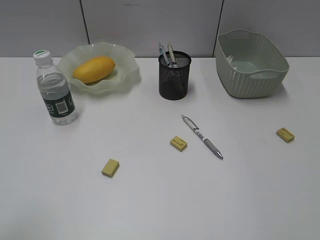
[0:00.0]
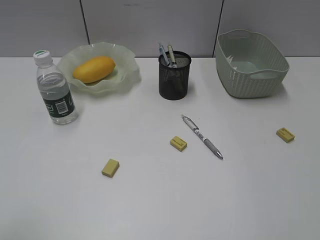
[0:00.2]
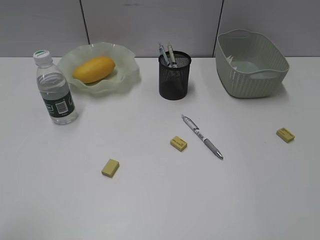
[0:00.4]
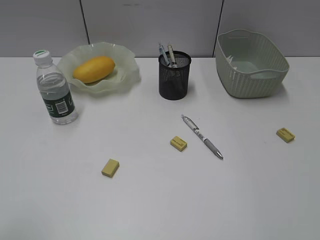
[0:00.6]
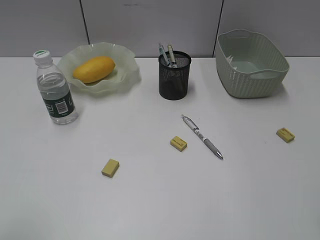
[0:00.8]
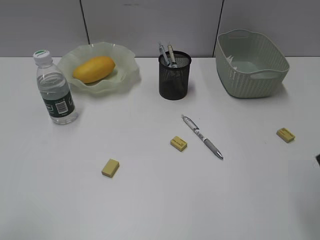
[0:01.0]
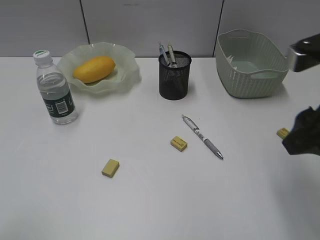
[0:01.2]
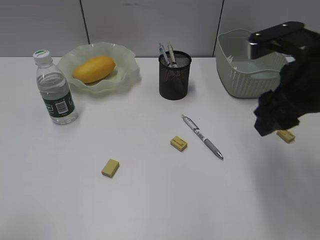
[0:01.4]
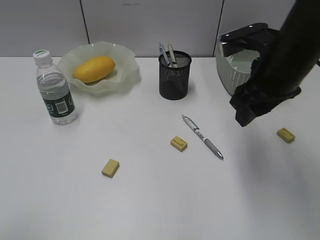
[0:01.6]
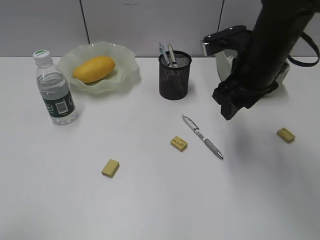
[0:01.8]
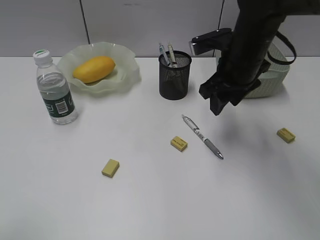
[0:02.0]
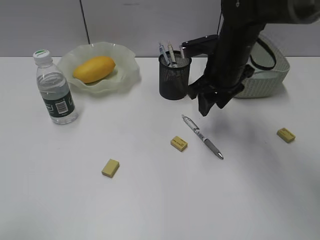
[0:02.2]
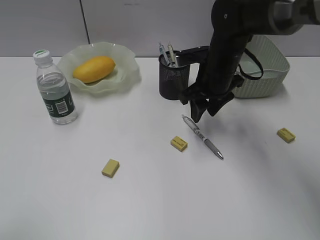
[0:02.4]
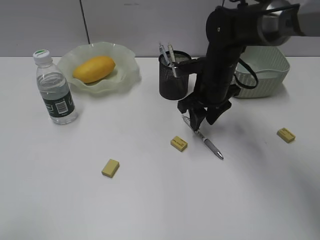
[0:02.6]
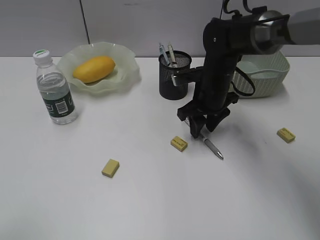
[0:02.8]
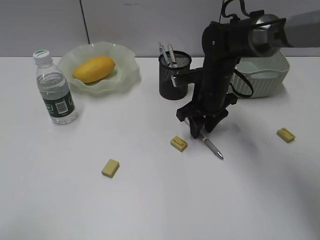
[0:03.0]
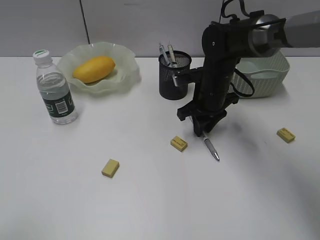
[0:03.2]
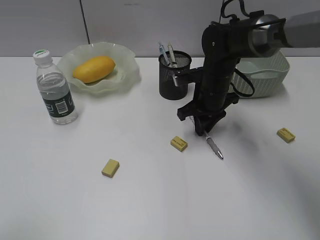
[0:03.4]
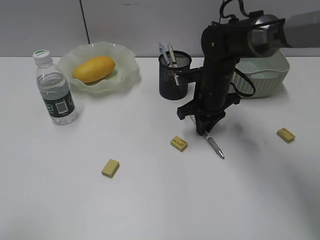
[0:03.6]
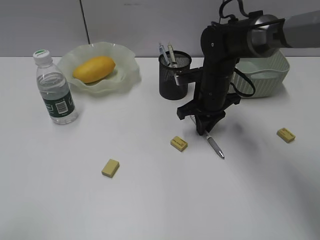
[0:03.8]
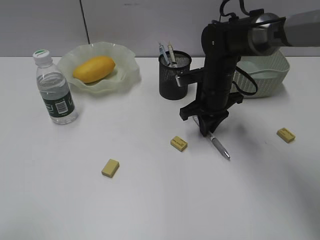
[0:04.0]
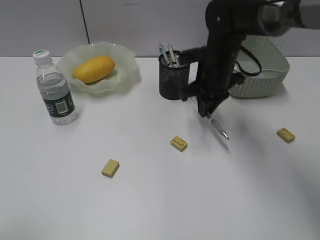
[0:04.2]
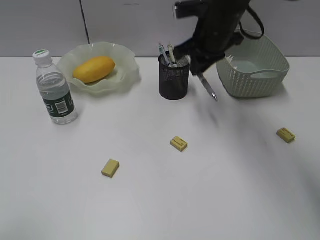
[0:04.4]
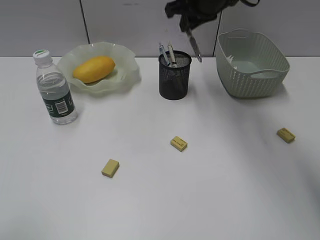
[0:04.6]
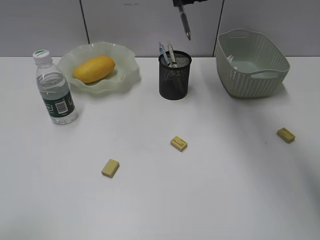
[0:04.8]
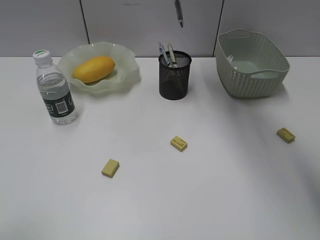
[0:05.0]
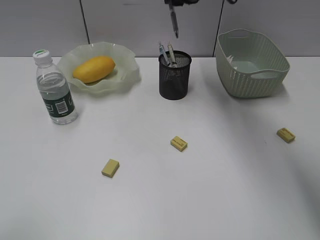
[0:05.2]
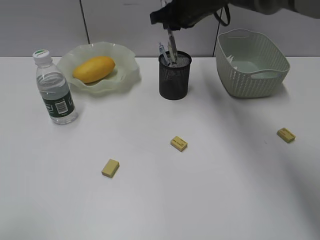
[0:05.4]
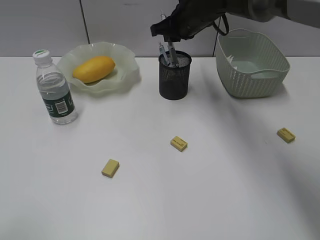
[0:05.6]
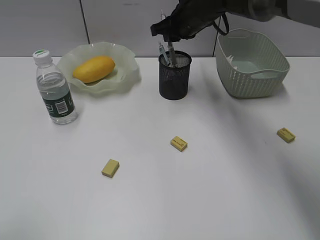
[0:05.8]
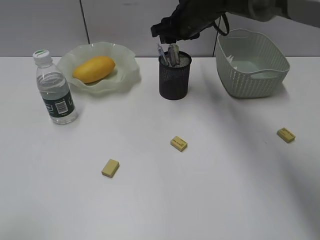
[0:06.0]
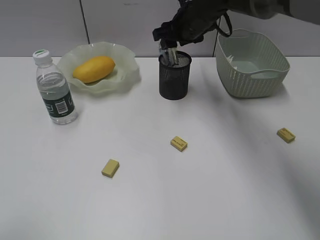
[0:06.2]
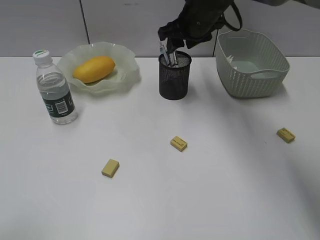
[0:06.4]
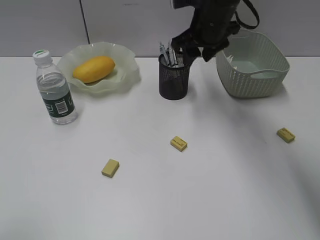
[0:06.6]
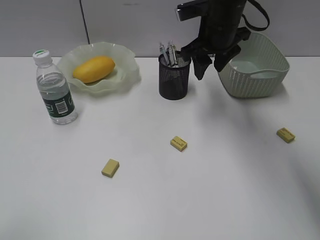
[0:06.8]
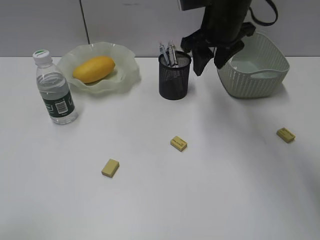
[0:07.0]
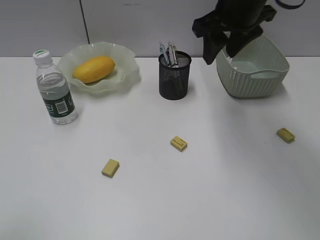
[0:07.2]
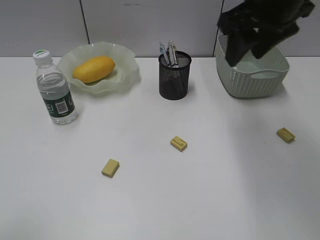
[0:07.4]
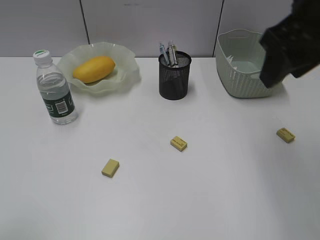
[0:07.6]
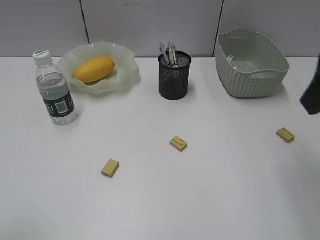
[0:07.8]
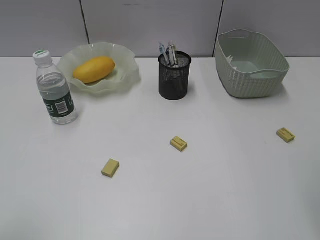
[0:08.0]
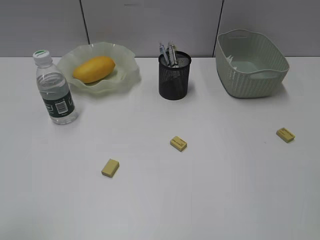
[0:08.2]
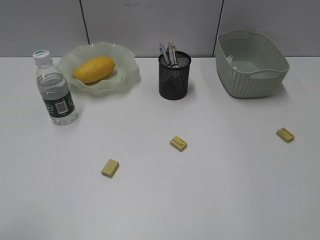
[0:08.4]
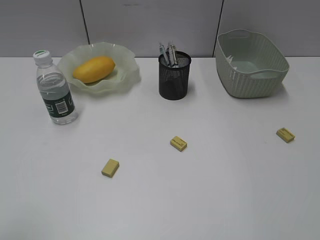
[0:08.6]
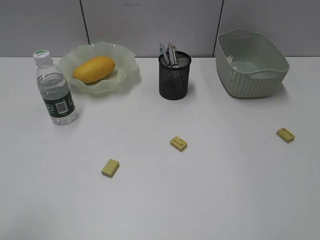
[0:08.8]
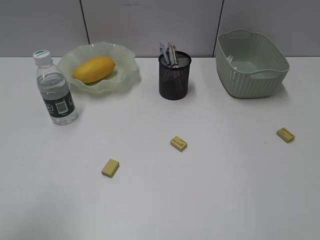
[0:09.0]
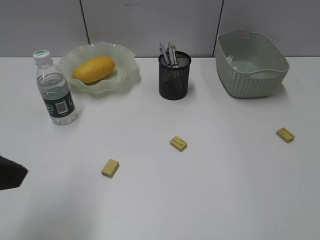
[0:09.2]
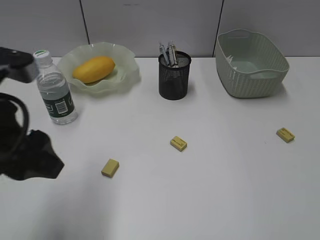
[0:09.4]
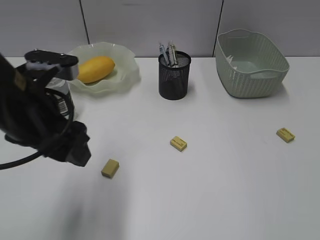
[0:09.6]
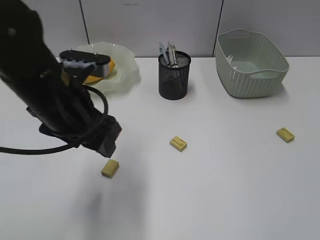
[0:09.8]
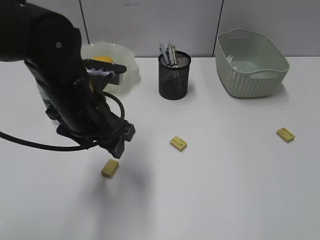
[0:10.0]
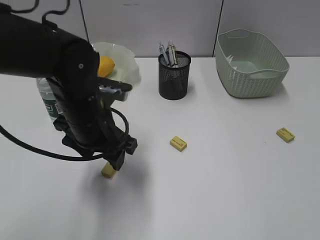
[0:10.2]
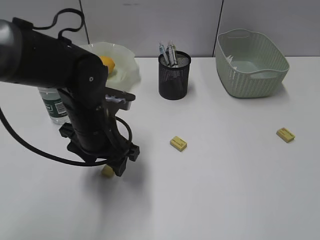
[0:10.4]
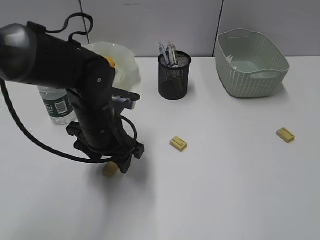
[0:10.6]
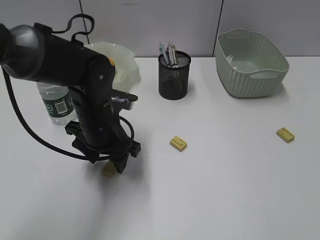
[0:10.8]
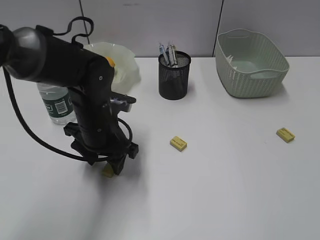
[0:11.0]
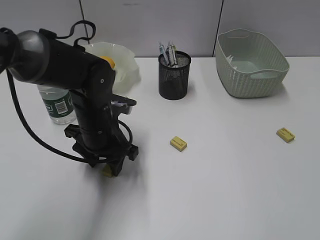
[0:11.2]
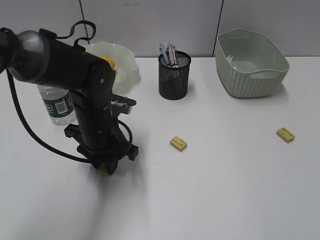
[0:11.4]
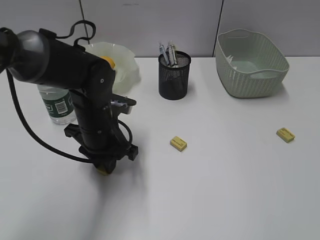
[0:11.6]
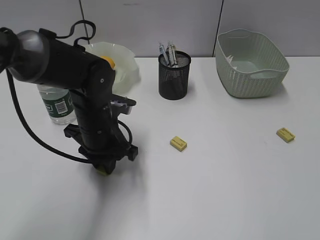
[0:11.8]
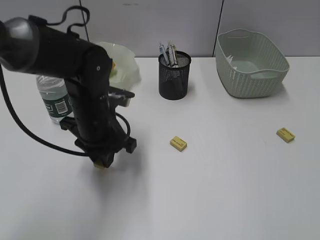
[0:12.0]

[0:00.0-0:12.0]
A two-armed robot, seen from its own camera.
Step, 0:00.0 to 0:03.8: Grasp the gray pen with right gripper.
Step, 0:04.0 to 0:06.0: Place the gray pen in pen holder with right gripper.
Step, 0:06.2 to 0:11.6: Grasp the eraser with left gripper.
0:00.0 to 0:01.6: The right gripper moves forward and to the left, approximately 30 cm.
0:01.6 to 0:03.0: The right gripper travels downward, forward and to the left by some 20 cm.
0:03.0 to 0:04.4: The right gripper is displaced upward by roughly 10 cm, and closes up.
0:04.4 to 0:06.0: The right gripper is displaced forward by some 5 cm, reaches roughly 10 cm upward, then returns, and opens.
0:06.0 to 0:07.6: The right gripper travels backward, upward and to the right by roughly 30 cm.
0:07.6 to 0:09.0: The right gripper goes some 25 cm backward and to the right.
0:09.0 to 0:10.4: The left gripper shifts some 30 cm forward, to the right and downward.
0:10.4 to 0:12.0: The left gripper closes up.

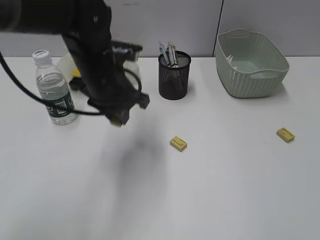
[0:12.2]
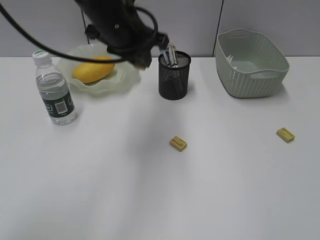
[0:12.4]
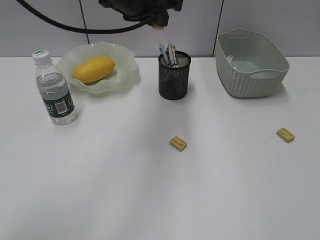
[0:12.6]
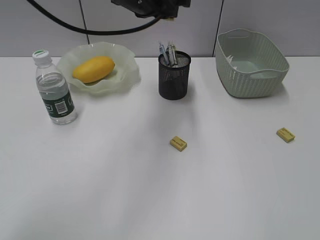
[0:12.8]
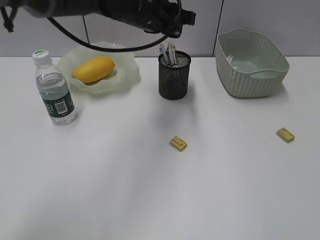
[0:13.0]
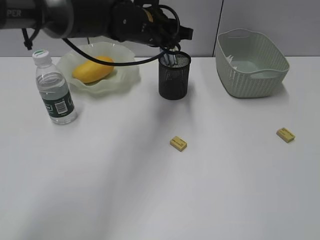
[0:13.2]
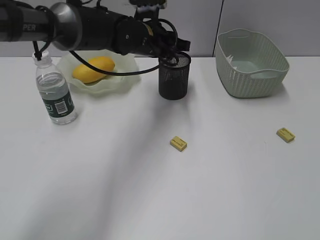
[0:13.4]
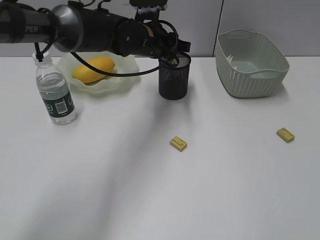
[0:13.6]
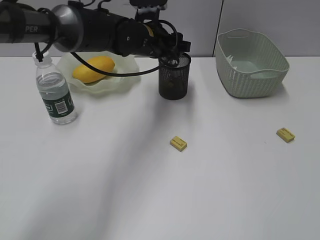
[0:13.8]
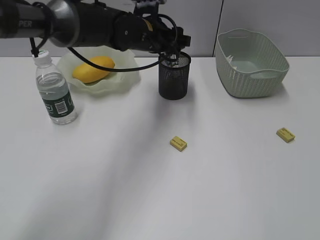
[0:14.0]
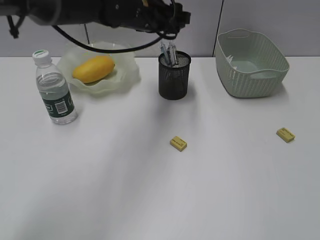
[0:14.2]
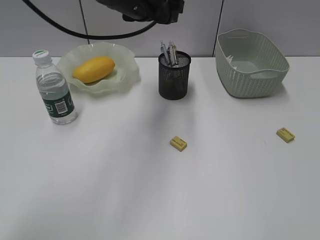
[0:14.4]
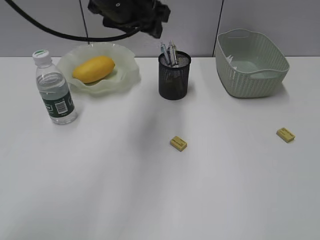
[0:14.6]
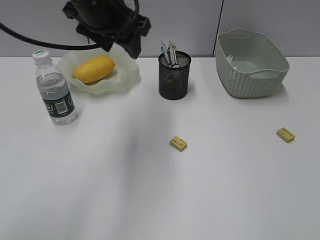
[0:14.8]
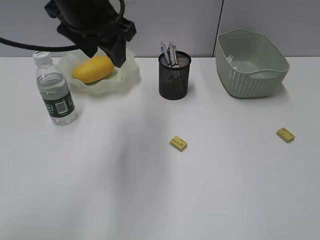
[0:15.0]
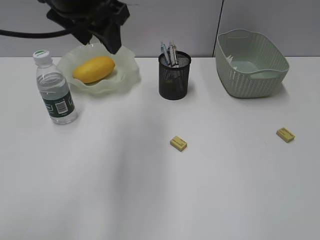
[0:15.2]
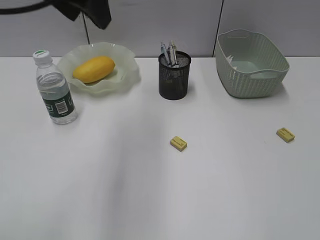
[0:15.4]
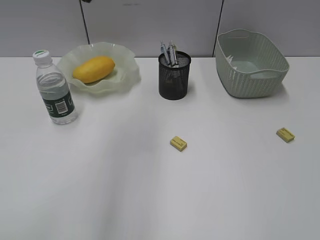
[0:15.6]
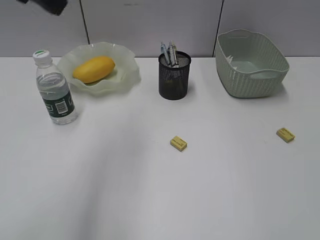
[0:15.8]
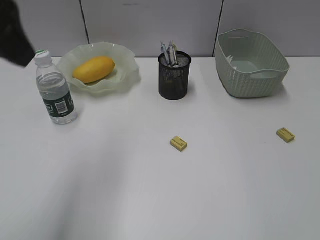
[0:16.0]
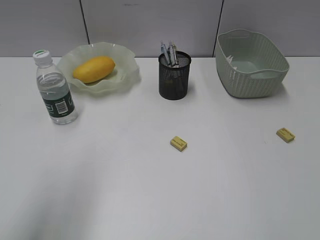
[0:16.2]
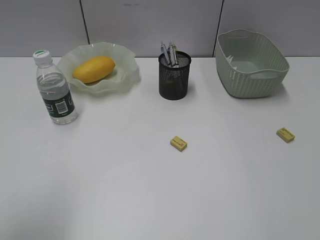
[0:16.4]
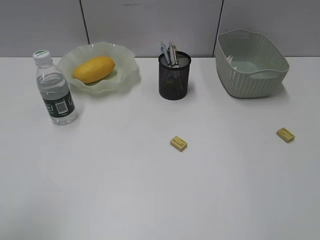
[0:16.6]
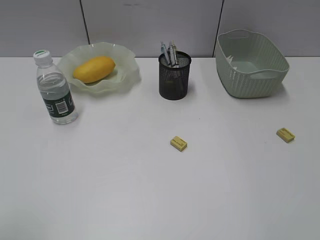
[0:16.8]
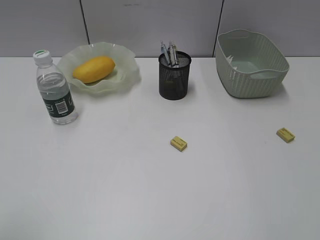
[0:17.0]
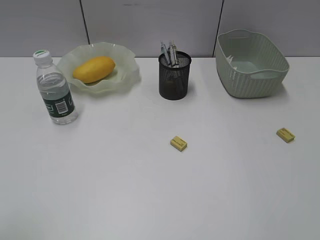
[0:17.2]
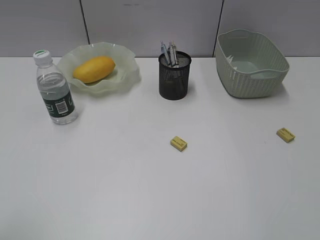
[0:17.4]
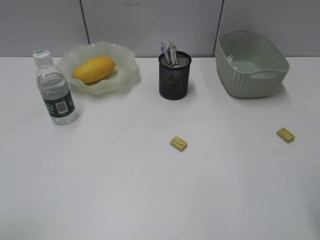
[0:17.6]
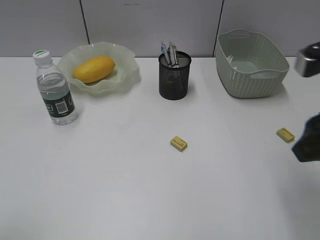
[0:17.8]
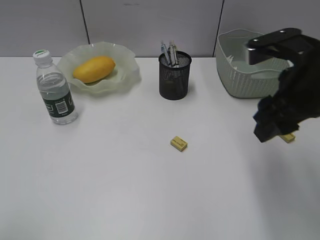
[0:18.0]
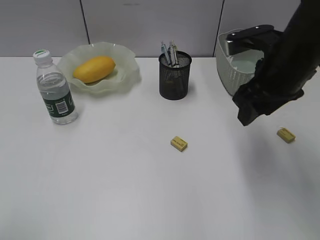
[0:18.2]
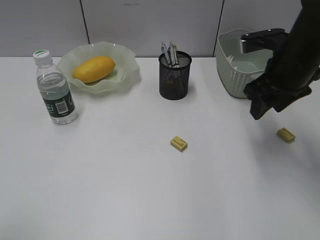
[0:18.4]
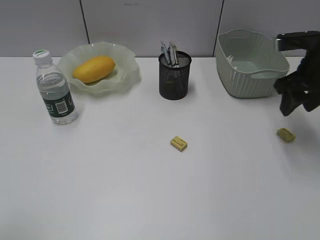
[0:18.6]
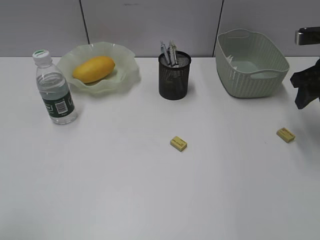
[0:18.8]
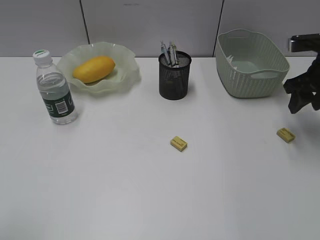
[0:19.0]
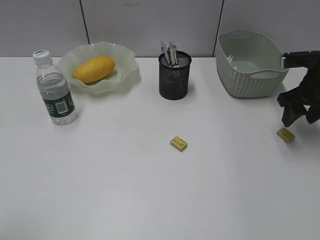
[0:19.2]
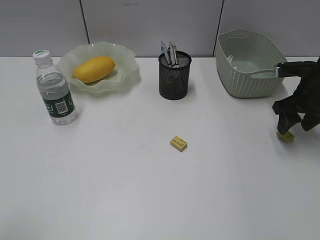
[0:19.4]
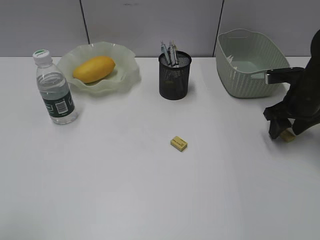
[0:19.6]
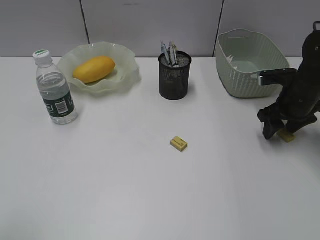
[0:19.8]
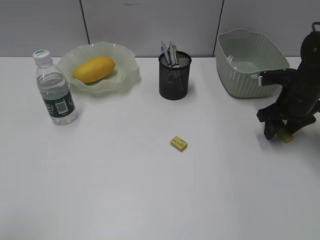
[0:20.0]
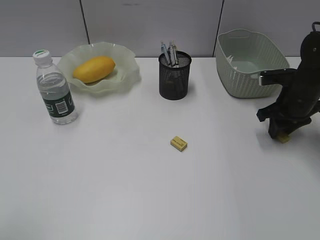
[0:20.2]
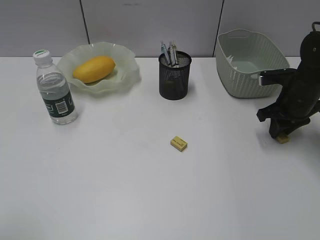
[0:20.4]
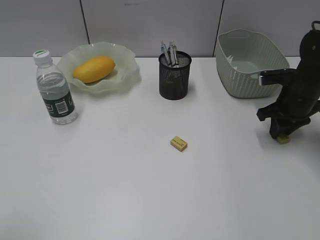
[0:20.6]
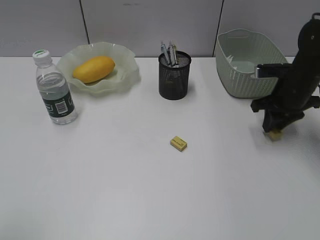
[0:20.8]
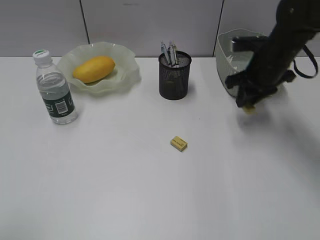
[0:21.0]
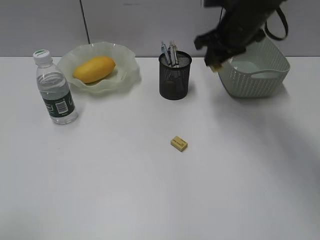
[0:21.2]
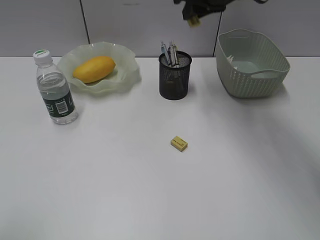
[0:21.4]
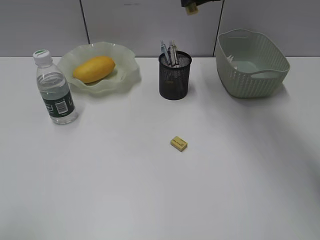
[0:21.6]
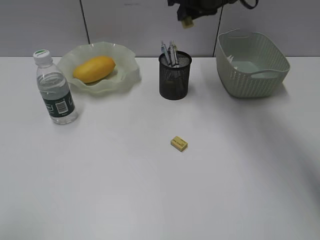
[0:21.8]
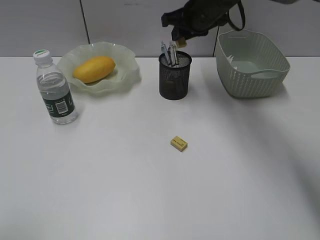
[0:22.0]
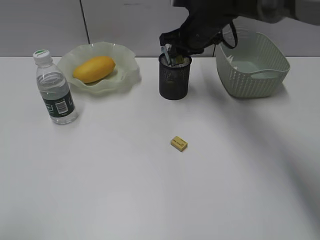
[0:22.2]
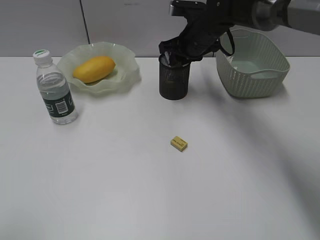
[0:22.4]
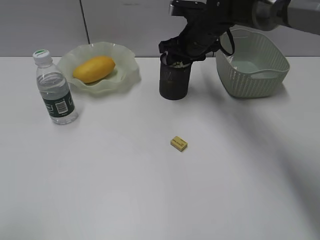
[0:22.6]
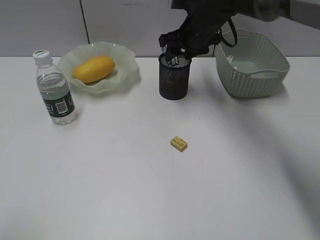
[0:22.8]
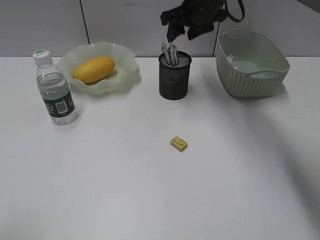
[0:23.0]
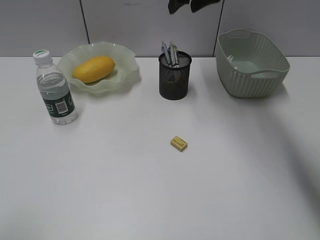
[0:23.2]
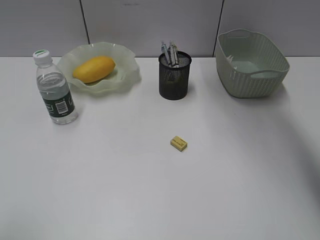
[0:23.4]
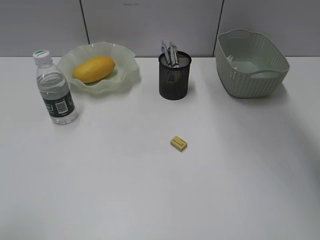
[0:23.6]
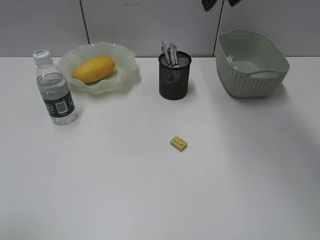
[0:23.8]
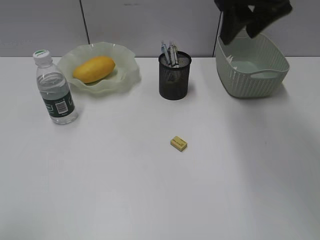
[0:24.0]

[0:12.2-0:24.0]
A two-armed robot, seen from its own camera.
Step, 0:12.2 to 0:13.8: Place the eraser in pen holder with left gripper.
Step, 0:14.0 to 0:20.4: Grasp the eraser with right gripper.
Step, 0:20.6 to 0:22.8: Place the eraser in pen holder with right gripper.
0:12.2 to 0:13.6: The left gripper is displaced forward and to the right by roughly 15 cm, and goes upward and returns, about 10 cm each way.
0:13.6 to 0:15.2: The left gripper is displaced upward, backward and to the left by roughly 20 cm, and opens up.
0:15.2 to 0:16.6: The left gripper shifts about 30 cm backward and to the left.
0:16.6 to 0:18.2: The right gripper moves forward and to the left, approximately 30 cm.
0:18.2 to 0:19.6: The right gripper shifts roughly 20 cm downward, to the right and forward.
0:19.6 to 0:21.0: The right gripper travels to the left by some 5 cm, and closes up.
0:21.0 to 0:22.6: The right gripper is displaced to the left and forward by roughly 15 cm, and moves about 15 cm upward and comes back.
0:22.6 to 0:24.0: The right gripper shifts approximately 20 cm upward and backward.
